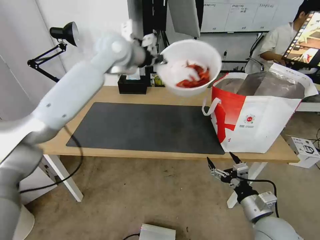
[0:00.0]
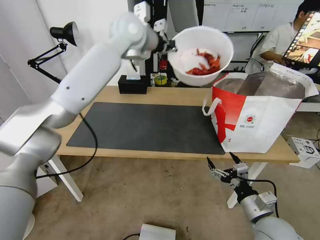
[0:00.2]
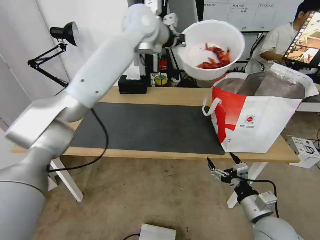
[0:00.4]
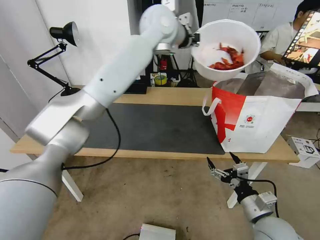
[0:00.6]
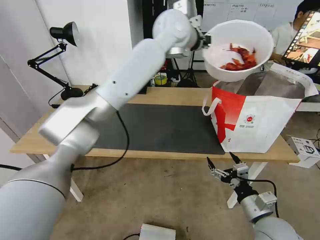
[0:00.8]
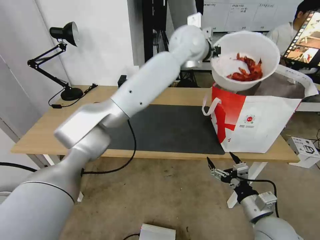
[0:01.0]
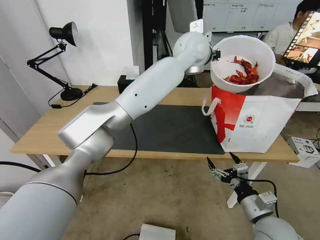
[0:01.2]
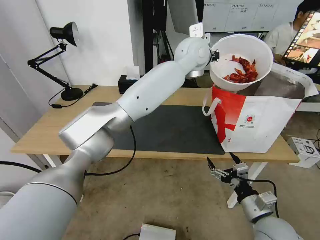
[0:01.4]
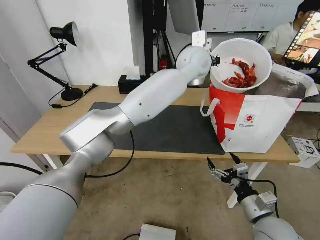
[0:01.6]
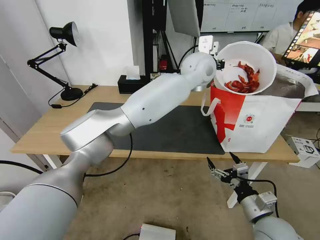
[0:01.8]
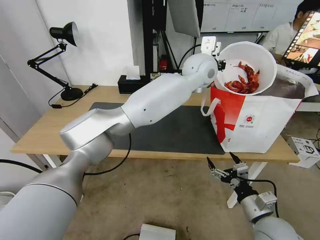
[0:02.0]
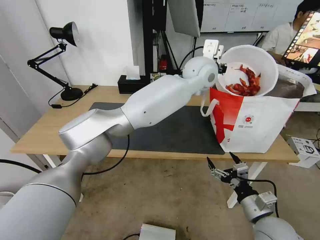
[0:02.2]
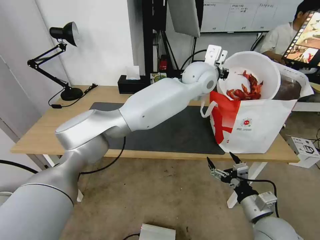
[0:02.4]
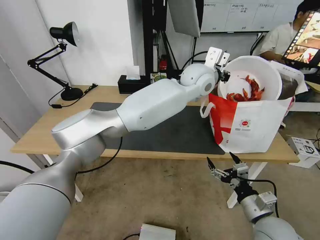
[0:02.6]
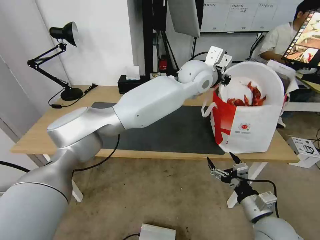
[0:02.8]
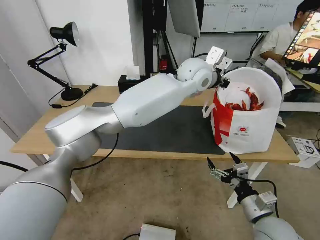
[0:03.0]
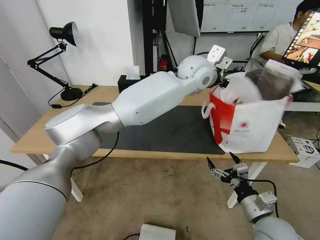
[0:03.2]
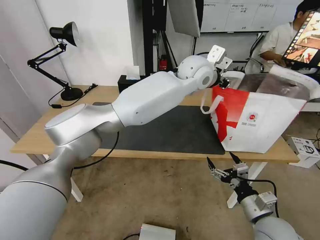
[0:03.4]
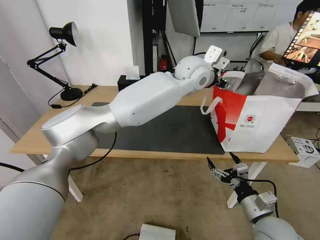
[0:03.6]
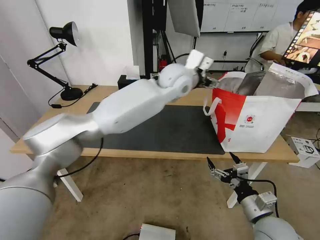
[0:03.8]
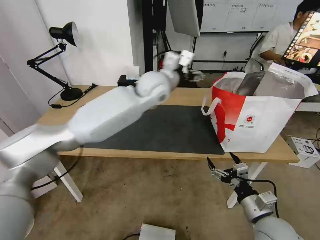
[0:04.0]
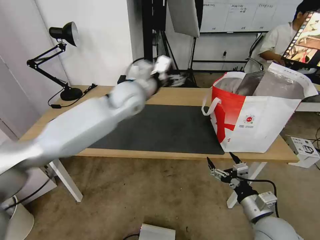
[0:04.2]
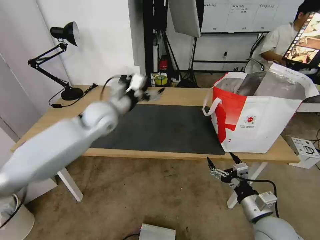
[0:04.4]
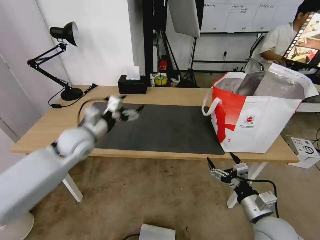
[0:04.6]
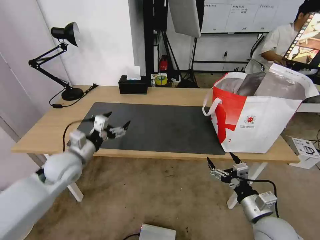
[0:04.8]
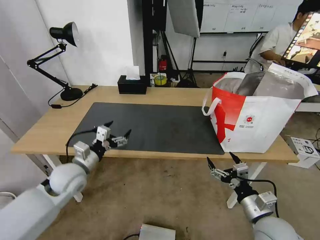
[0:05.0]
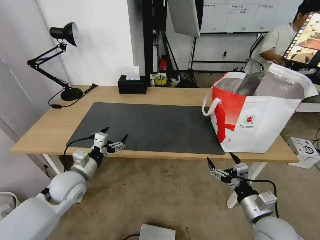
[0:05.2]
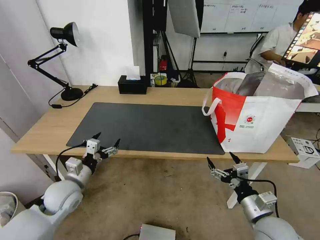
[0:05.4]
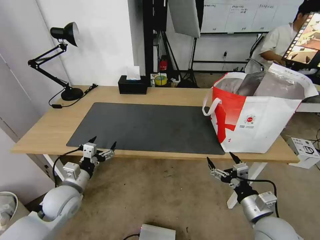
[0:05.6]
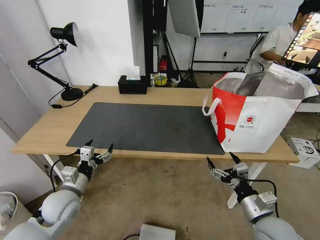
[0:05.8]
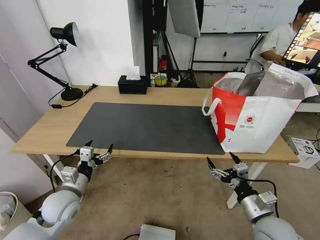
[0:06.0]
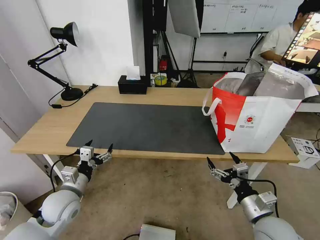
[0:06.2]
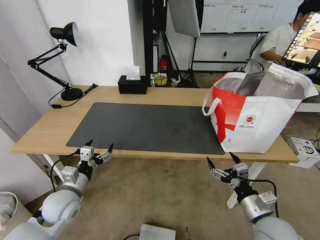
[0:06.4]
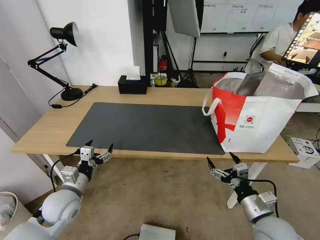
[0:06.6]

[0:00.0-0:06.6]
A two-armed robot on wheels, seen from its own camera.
Task of the whole recording: Pick up the trash from the table and place it into the takeout bag.
0:00.0 to 0:01.6: The left gripper moves to the right, some 20 cm.
0:03.2 to 0:05.0: The left gripper is displaced to the left, downward and backward by about 50 cm, and opens.
0:05.0 to 0:06.6: The left gripper is displaced backward and downward by roughly 10 cm.

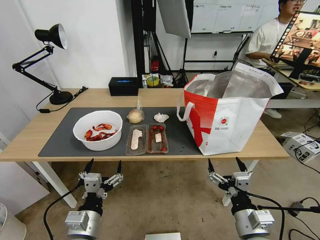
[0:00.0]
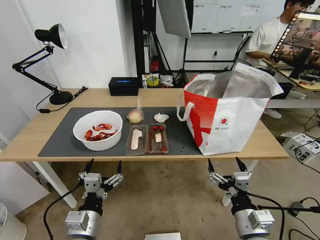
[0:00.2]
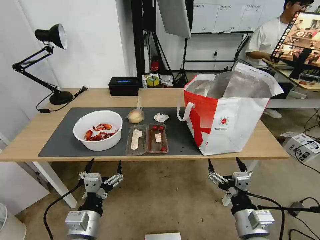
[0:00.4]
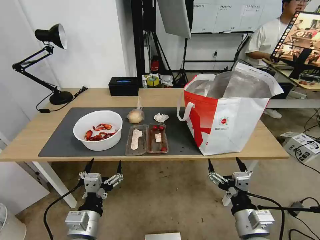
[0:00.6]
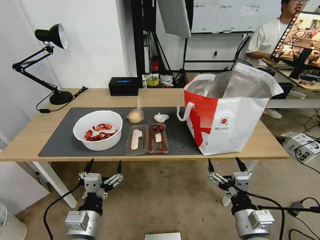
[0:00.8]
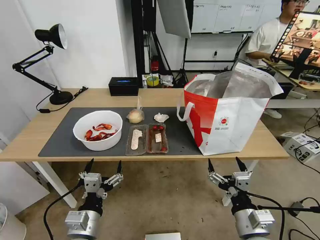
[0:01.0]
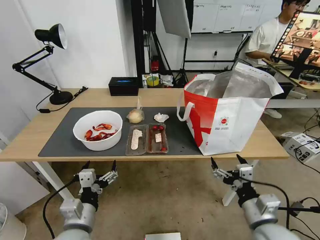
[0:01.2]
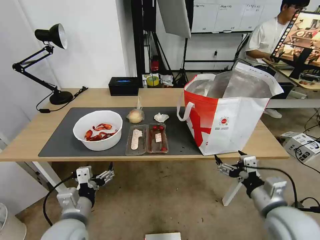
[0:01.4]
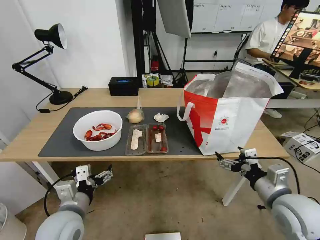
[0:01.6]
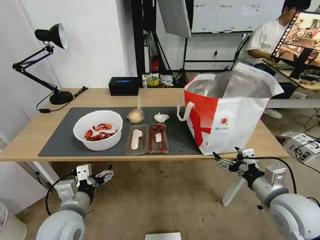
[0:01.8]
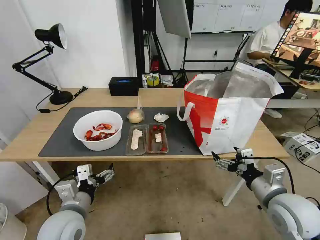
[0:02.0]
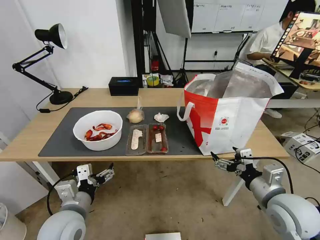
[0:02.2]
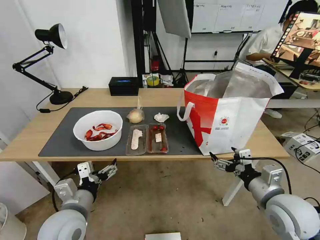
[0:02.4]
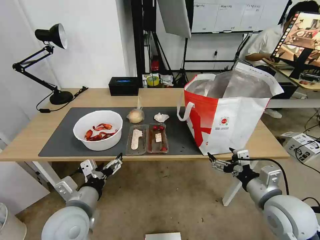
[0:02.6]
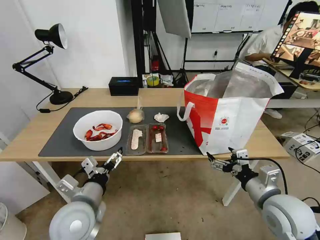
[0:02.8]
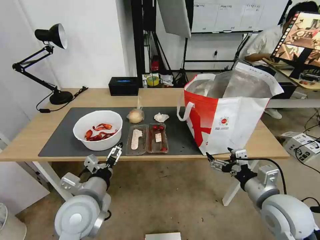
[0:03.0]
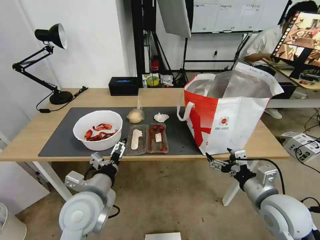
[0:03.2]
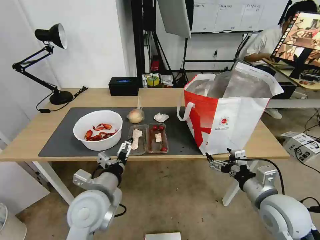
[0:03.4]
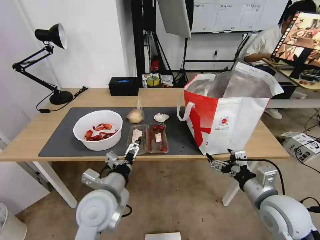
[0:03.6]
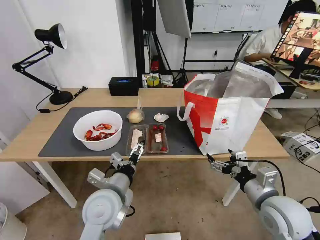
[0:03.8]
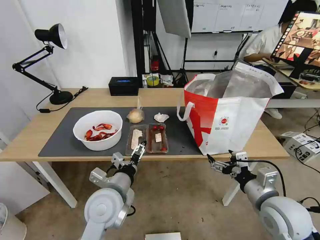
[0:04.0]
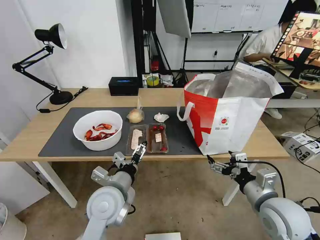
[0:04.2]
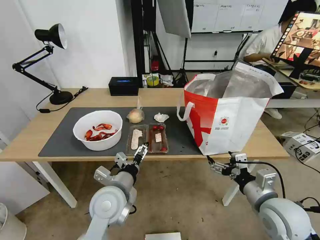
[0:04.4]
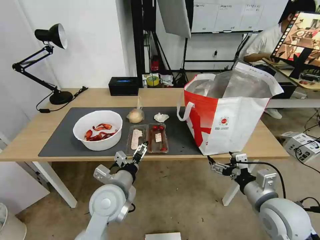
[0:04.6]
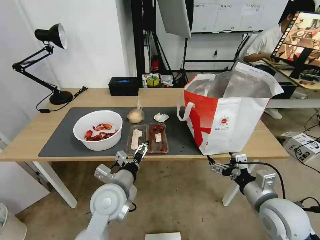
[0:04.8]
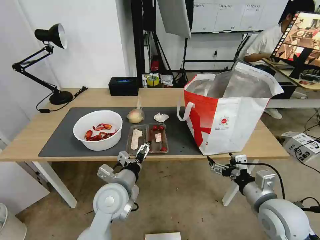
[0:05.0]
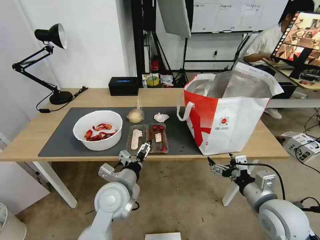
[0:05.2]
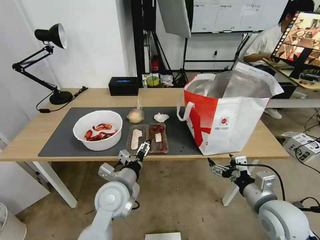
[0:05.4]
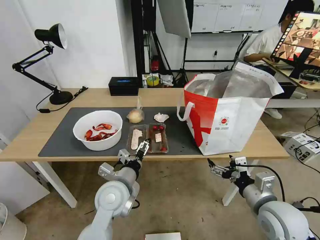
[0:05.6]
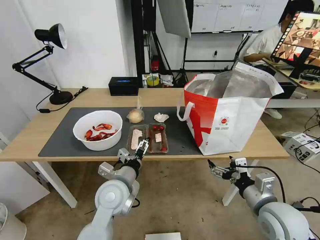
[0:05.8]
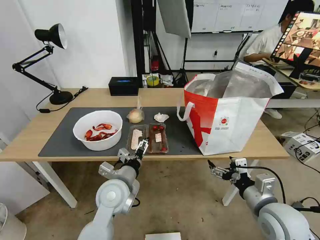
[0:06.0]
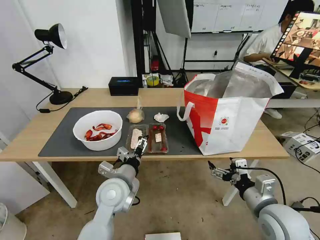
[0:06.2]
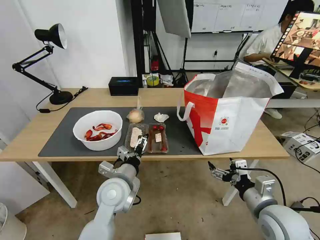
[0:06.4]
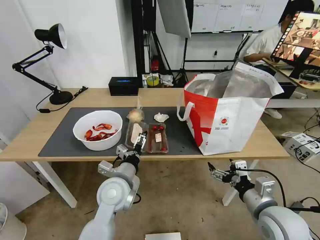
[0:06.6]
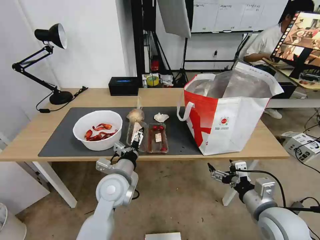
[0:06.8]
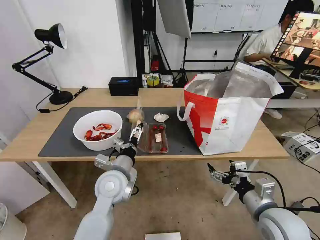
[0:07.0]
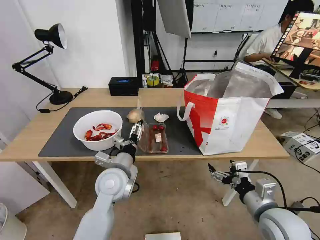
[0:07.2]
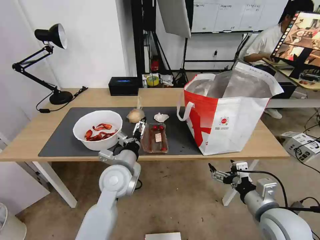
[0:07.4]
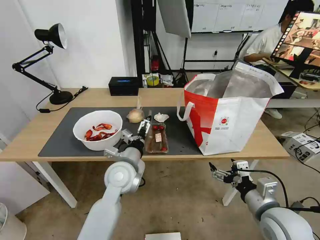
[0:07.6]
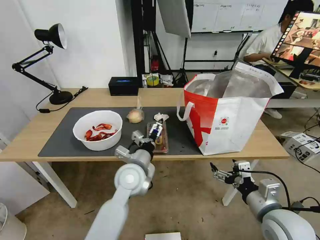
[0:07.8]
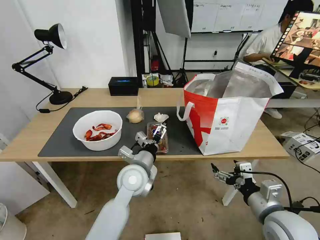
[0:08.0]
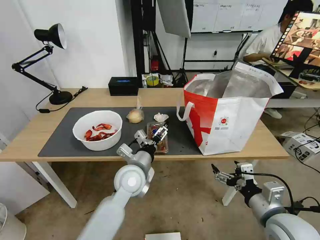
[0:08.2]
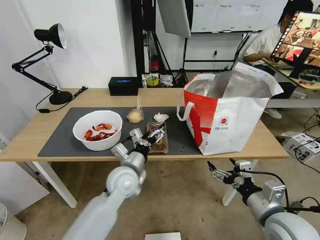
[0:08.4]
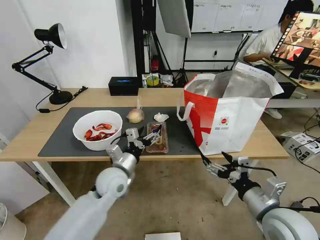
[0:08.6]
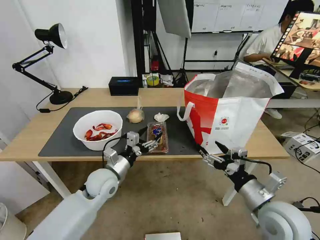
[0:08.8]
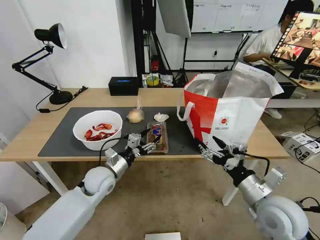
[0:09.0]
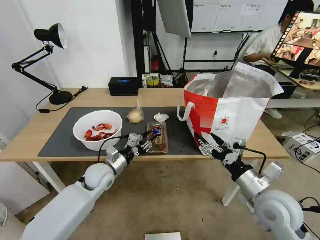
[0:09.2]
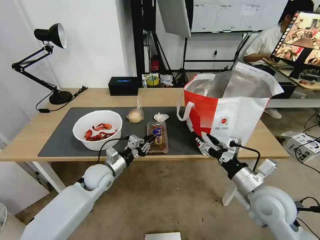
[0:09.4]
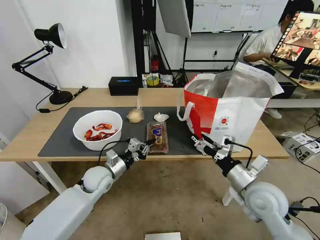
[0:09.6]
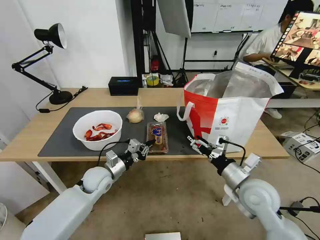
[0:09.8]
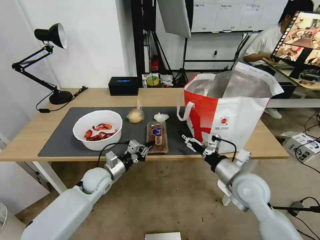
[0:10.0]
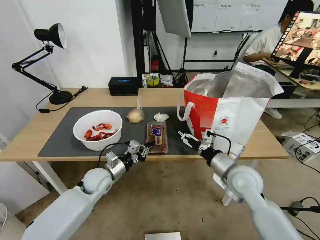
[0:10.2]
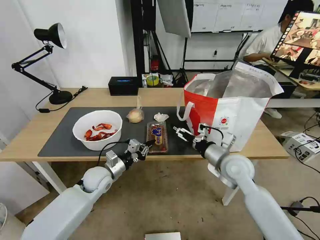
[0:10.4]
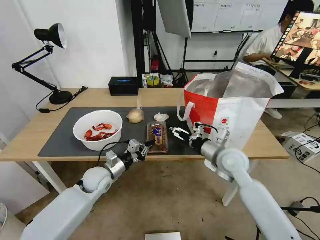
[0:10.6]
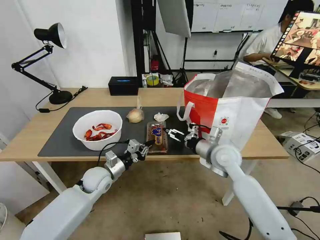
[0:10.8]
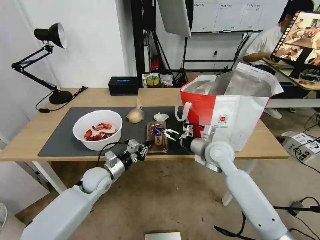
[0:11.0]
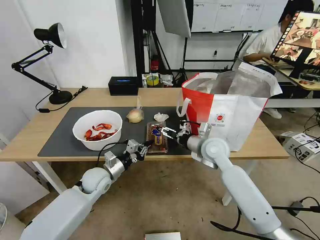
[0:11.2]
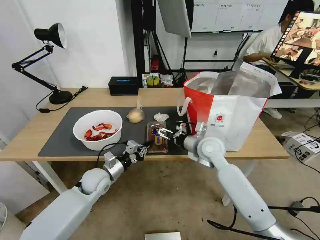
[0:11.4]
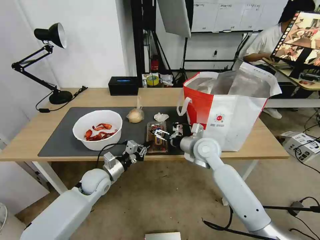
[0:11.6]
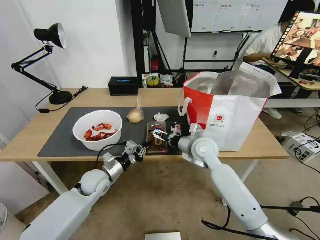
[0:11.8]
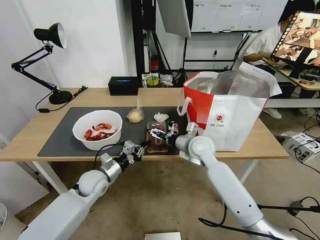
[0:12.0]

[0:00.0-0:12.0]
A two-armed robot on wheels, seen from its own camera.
Task of the whole recording: Pick up the trash from the table and place it into the takeout bag.
0:01.6 to 0:03.0: The left gripper ends up some 5 cm from where it was.
0:03.0 to 0:04.4: The left gripper goes approximately 5 cm to the right.
0:04.4 to 0:06.0: The grippers stay close to where they were, moving slightly.
0:06.0 to 0:07.6: The left gripper moves approximately 5 cm.
0:07.6 to 0:09.0: The left gripper goes roughly 10 cm to the left and downward, and closes up.
0:09.0 to 0:10.4: The right gripper heads forward, covering roughly 15 cm, while the left gripper closes.
0:10.4 to 0:12.0: The right gripper shifts approximately 15 cm to the left and forward.

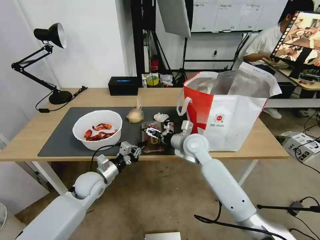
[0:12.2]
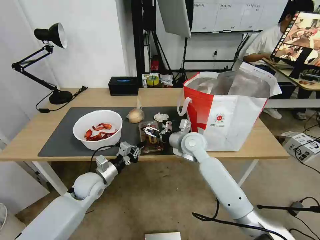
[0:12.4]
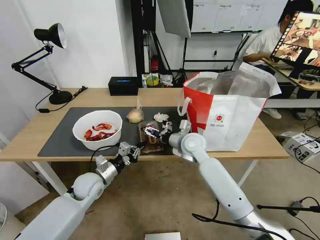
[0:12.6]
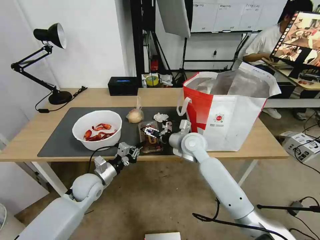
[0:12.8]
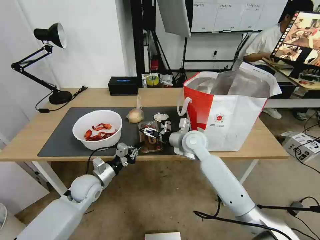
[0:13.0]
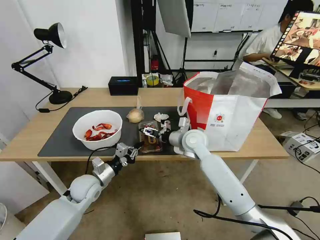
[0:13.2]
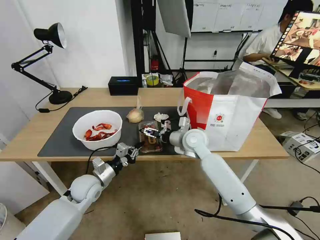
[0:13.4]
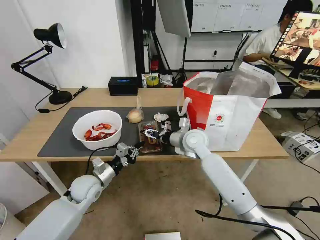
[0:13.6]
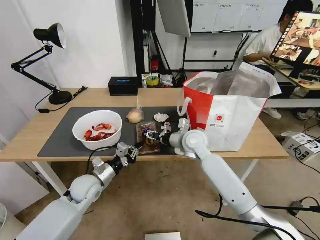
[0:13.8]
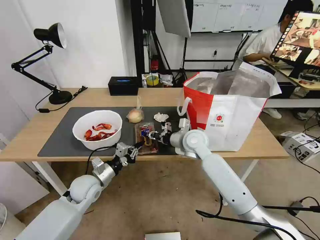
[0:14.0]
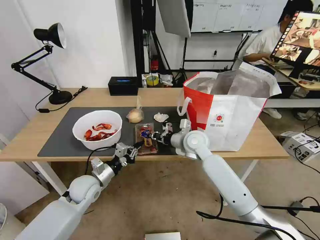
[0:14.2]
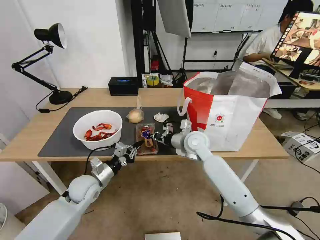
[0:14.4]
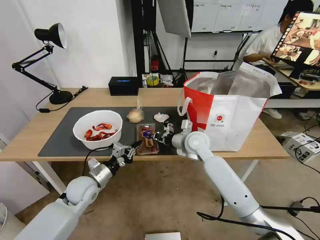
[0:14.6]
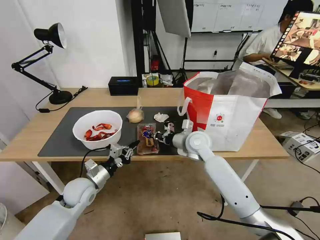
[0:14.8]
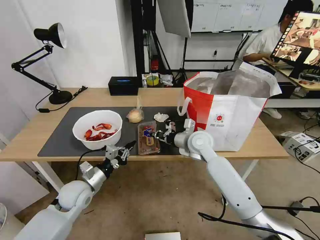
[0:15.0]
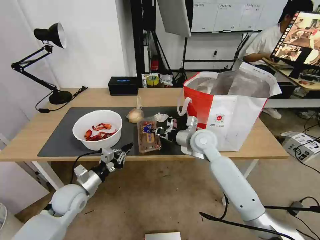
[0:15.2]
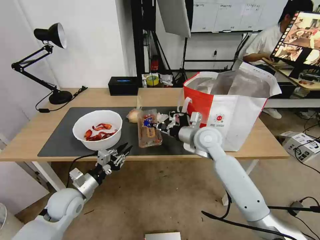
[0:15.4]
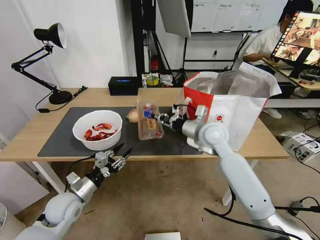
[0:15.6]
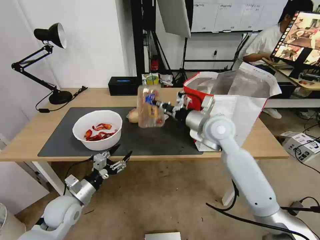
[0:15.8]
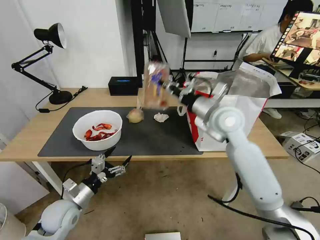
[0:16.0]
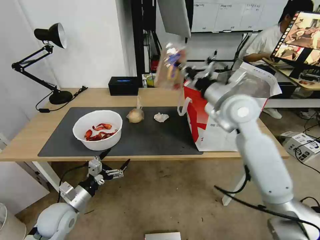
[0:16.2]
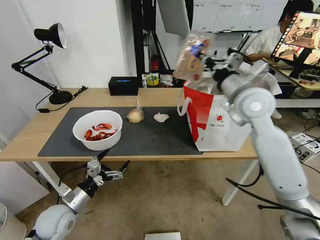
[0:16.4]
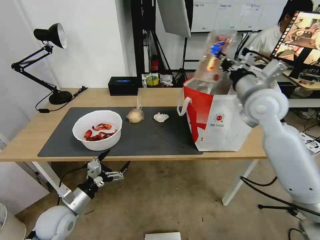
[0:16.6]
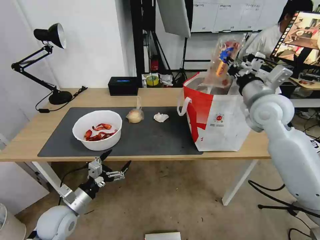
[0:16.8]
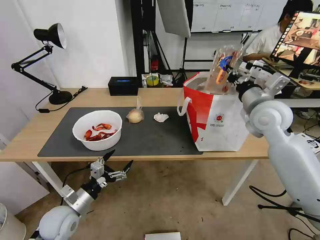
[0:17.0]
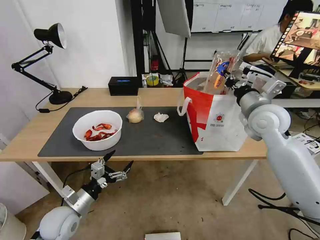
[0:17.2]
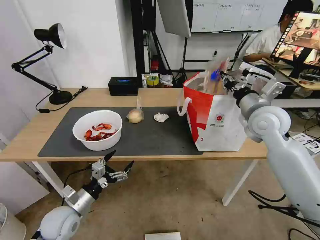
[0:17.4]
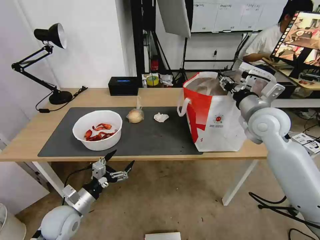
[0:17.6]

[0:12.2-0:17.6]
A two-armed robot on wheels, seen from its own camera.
Task of the whole recording: Pick up the trash from the table and place it into the takeout bag.
0:12.2 to 0:13.6: The grippers make only small movements.
0:13.6 to 0:15.0: The right gripper closes.
0:15.0 to 0:16.2: The left gripper moves backward, roughly 5 cm, and opens up, while the right gripper travels upward by roughly 15 cm.
0:16.2 to 0:17.6: The right gripper heads to the right, covering roughly 10 cm, and opens.
